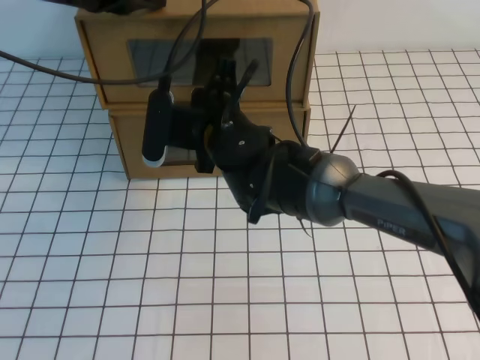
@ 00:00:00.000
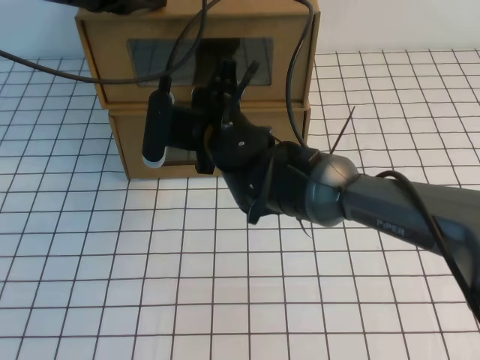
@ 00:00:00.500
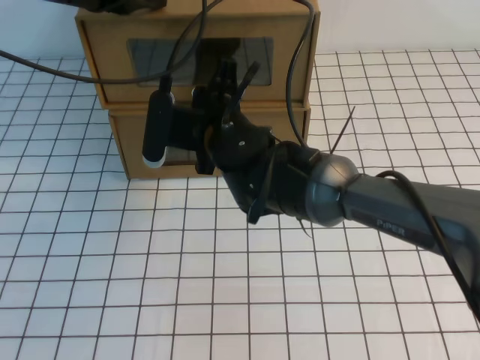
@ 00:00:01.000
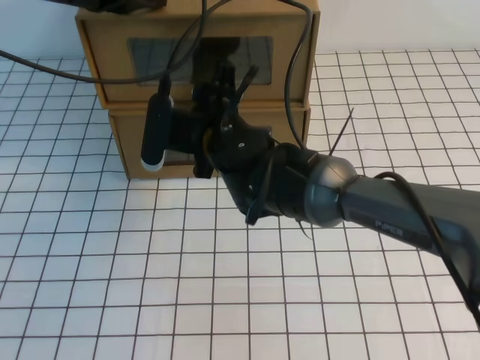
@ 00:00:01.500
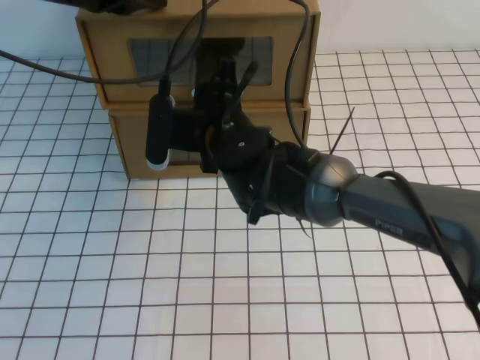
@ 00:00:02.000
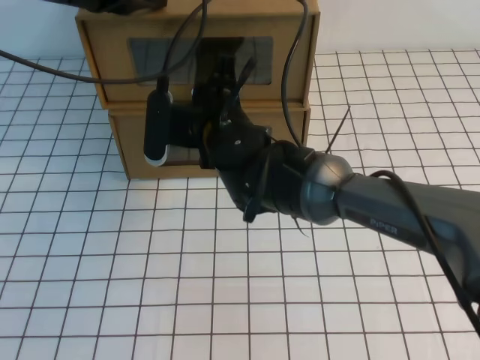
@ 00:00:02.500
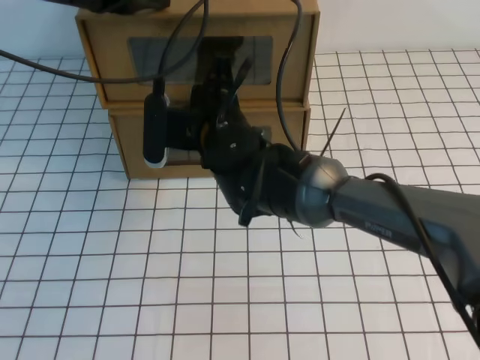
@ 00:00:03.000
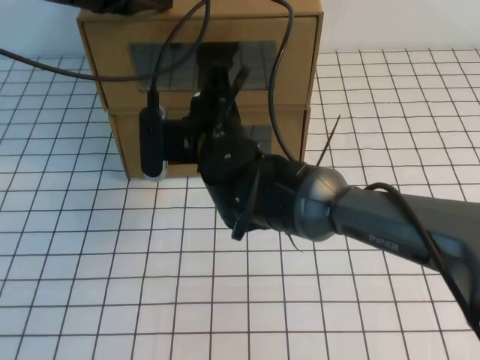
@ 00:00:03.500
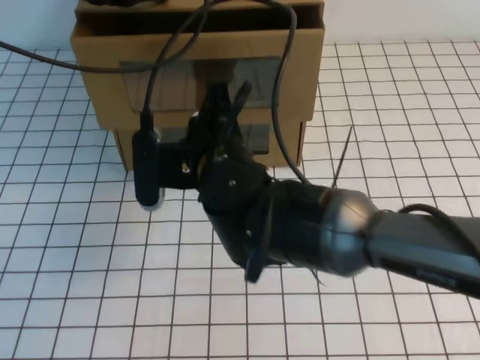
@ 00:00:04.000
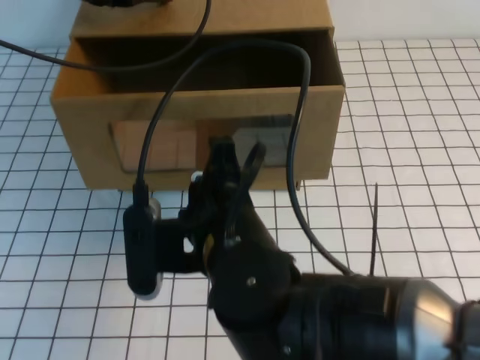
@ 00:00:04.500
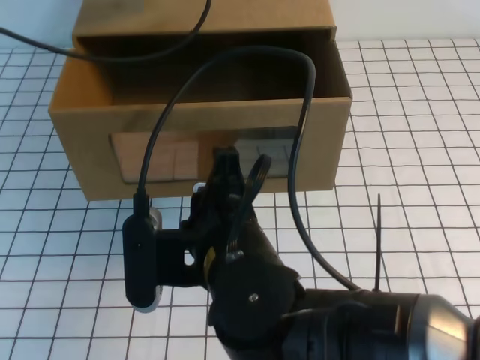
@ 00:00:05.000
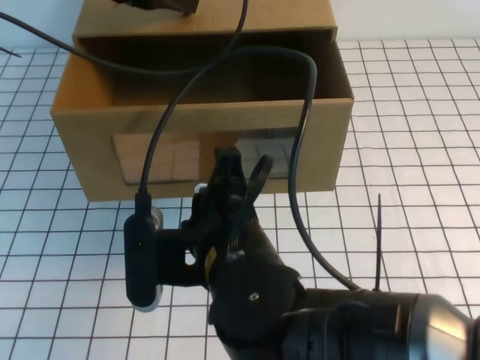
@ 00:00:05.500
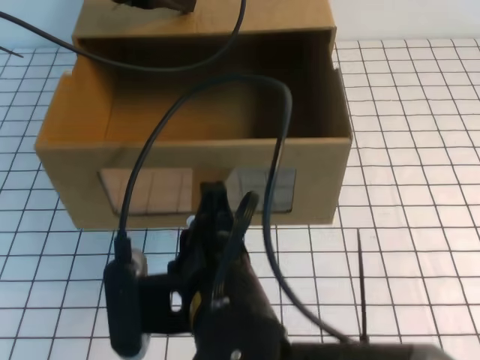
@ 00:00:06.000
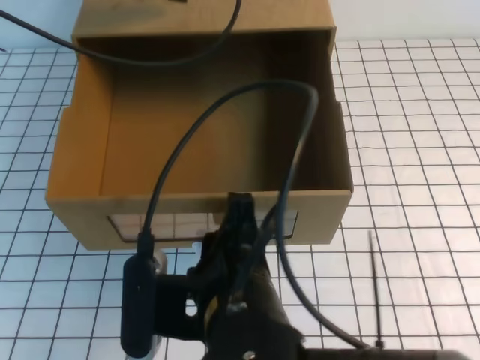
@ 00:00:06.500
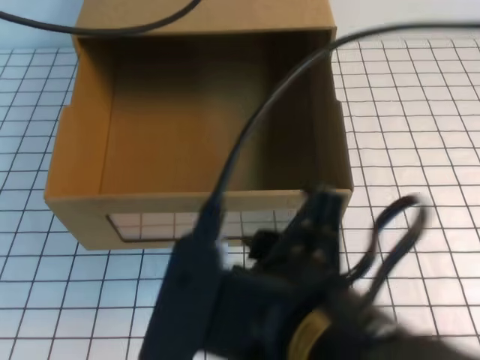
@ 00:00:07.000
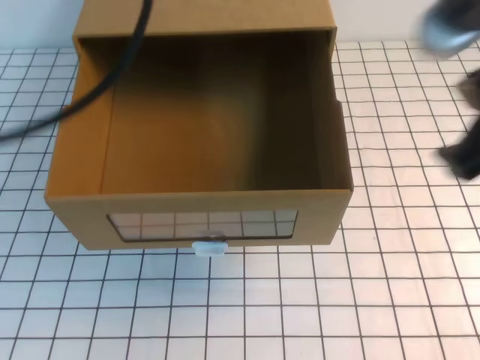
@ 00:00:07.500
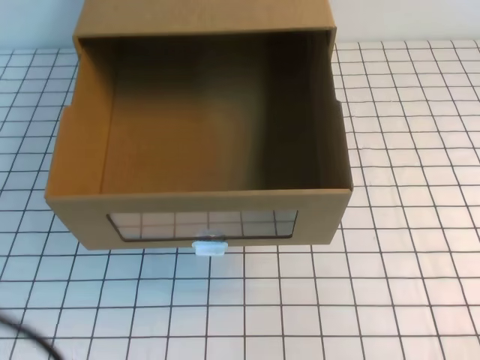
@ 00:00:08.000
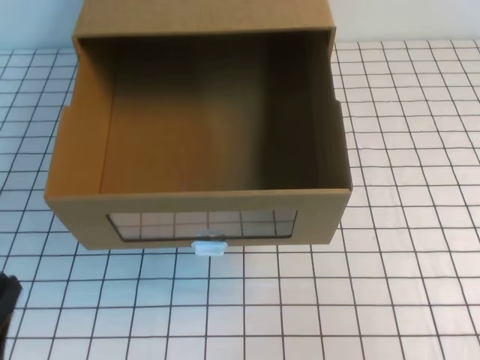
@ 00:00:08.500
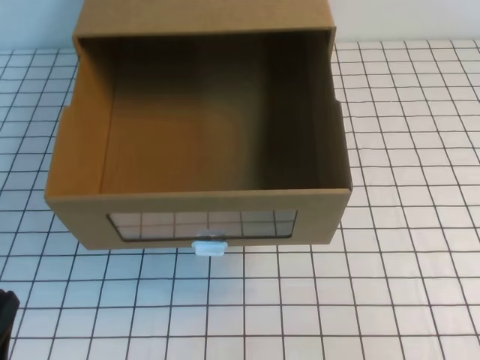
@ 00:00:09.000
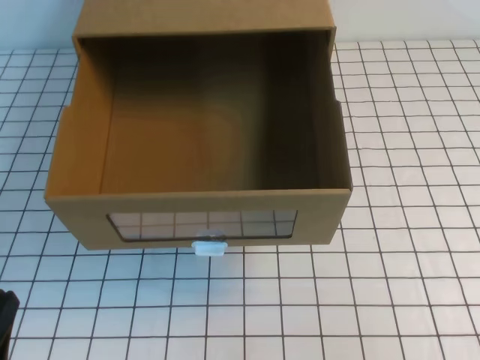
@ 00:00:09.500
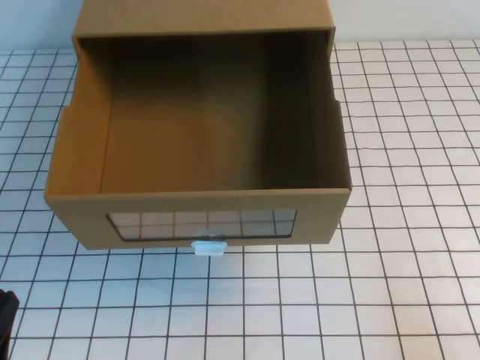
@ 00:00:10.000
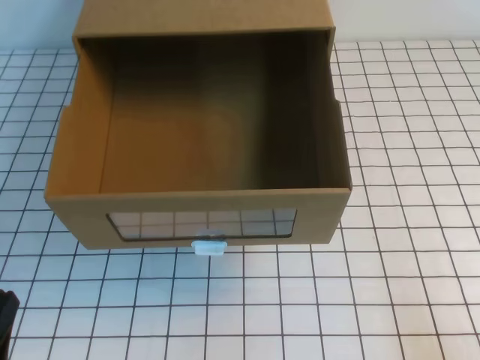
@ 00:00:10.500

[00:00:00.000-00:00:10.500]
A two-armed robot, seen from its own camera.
Task of the whole recording: open the shoebox on the white tablecloth.
00:00:00.000 to 00:00:02.000: The right gripper opens up.
00:00:02.000 to 00:00:04.000: The right gripper travels backward by roughly 5 cm, and closes.
00:00:04.000 to 00:00:06.500: The right gripper moves backward, some 15 cm.
00:00:06.500 to 00:00:08.500: The left gripper travels backward and downward by some 35 cm. Meanwhile the right gripper moves to the right, approximately 30 cm, and opens, then closes once more.
00:00:08.500 to 00:00:10.500: The right gripper goes approximately 15 cm downward, while the left gripper travels downward by approximately 10 cm.

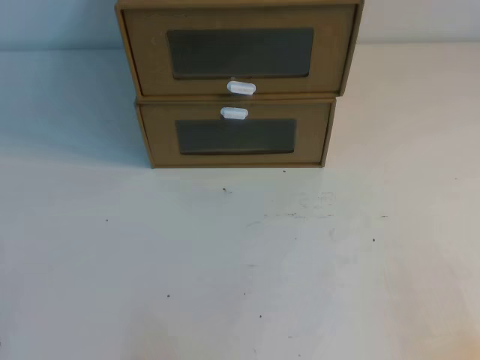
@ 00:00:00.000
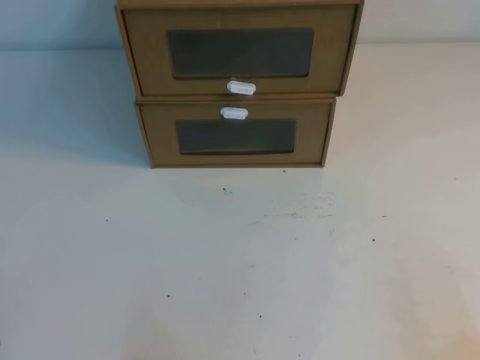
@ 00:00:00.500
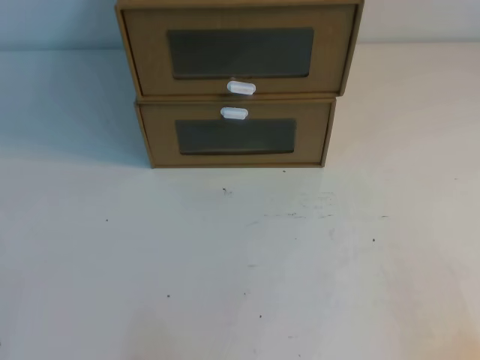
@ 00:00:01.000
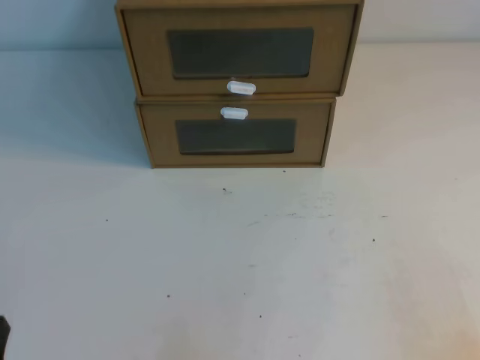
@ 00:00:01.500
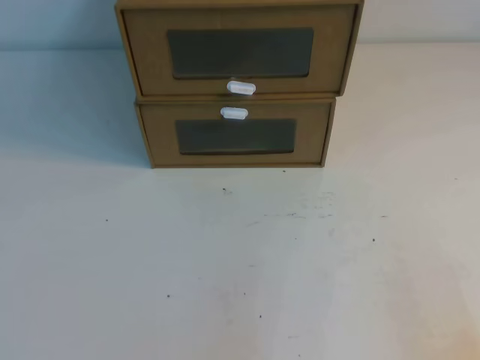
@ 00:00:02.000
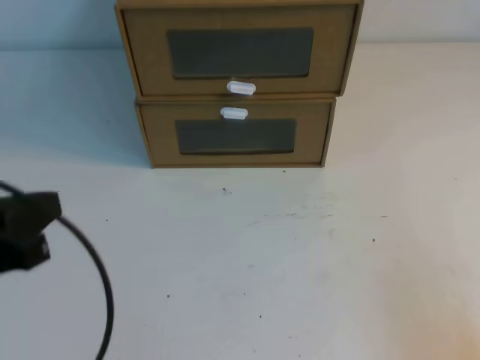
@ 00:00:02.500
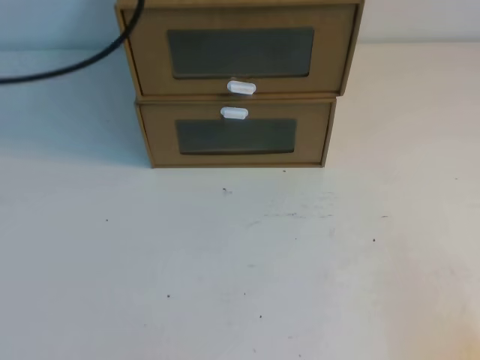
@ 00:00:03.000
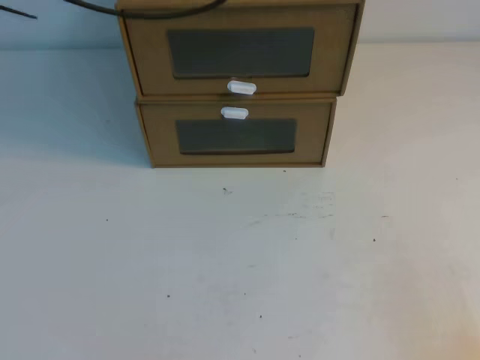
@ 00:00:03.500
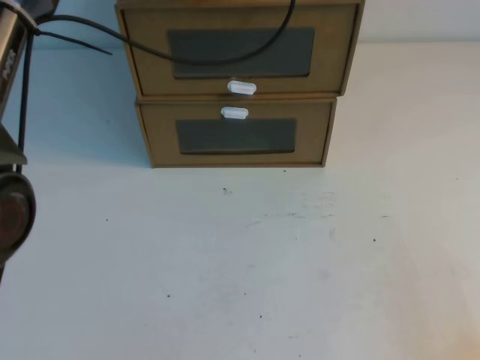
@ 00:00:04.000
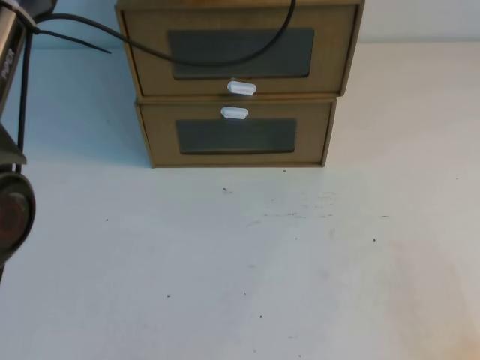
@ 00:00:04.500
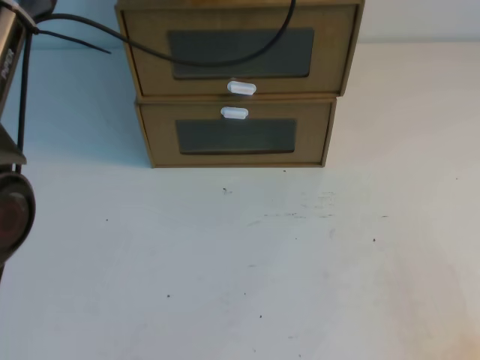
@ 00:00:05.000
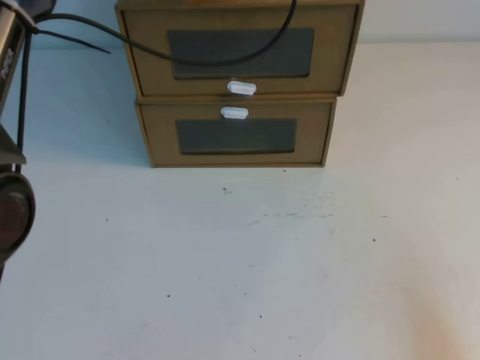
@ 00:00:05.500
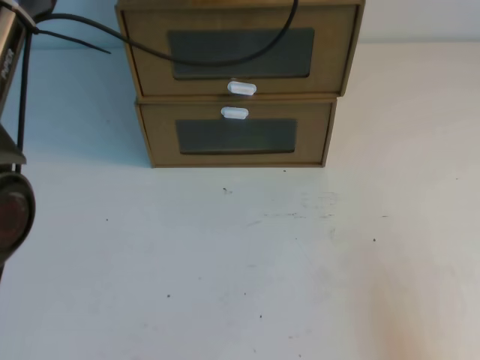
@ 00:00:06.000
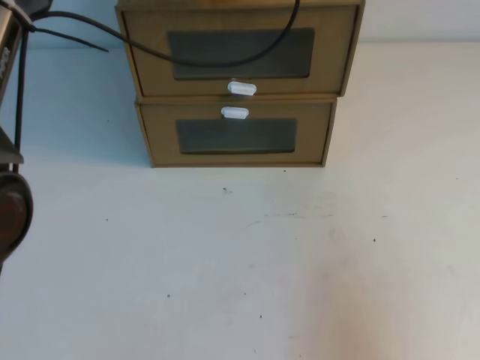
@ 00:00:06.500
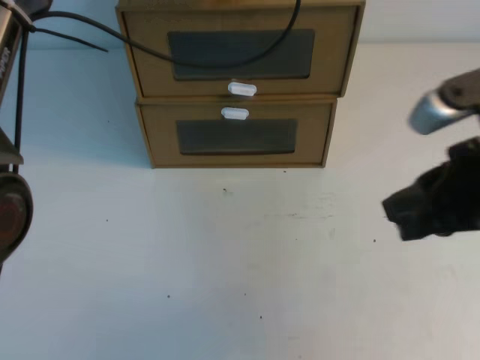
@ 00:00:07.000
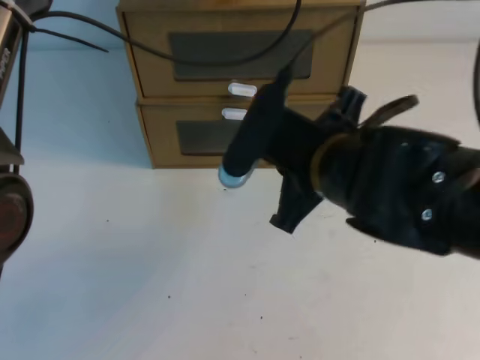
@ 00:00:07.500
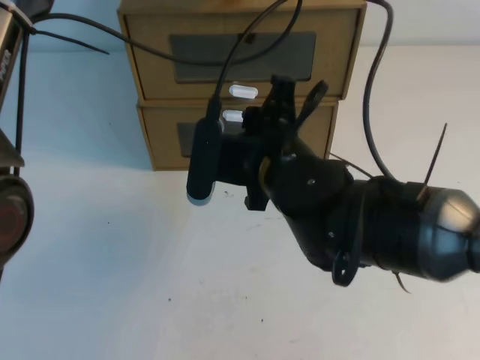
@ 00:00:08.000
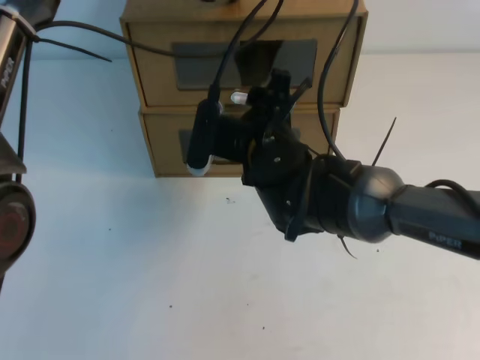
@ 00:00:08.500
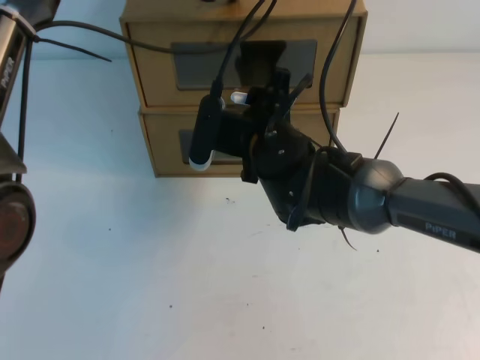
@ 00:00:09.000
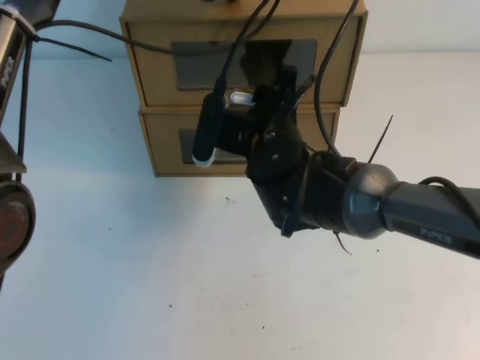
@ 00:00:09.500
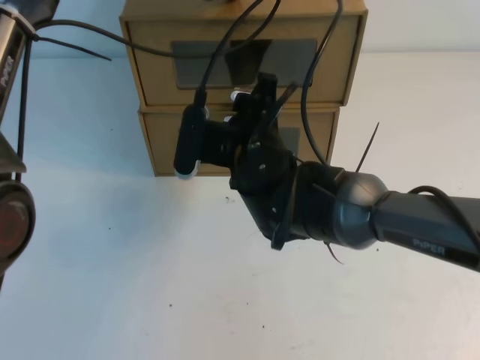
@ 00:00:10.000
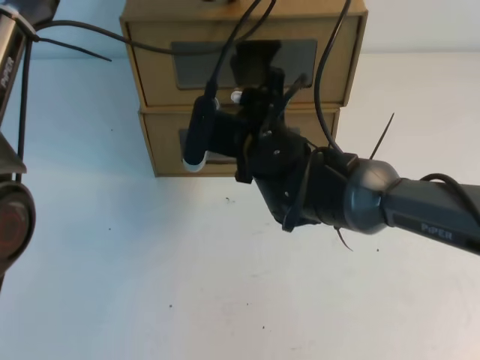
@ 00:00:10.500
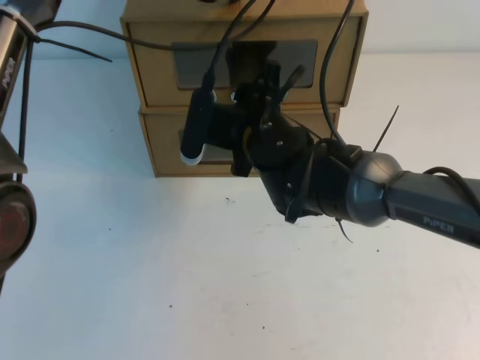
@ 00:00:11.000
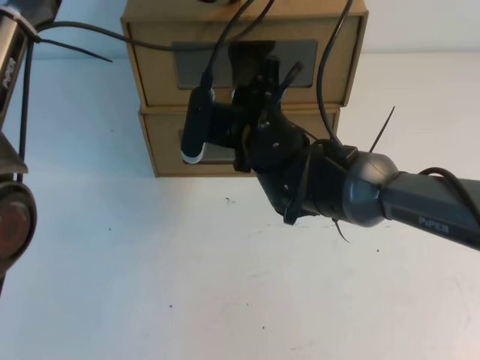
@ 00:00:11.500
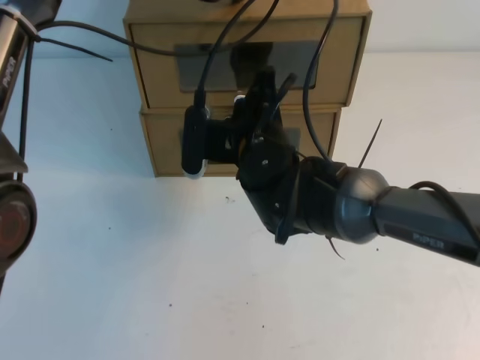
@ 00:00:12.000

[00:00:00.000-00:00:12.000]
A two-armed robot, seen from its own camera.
Task of the whole recording: open the shoebox on the table.
00:00:02.000 to 00:00:04.000: The left gripper shifts approximately 50 cm forward, upward and to the right.
00:00:06.000 to 00:00:08.000: The right gripper is displaced to the left and forward by roughly 35 cm.
00:00:08.000 to 00:00:10.000: The right gripper travels forward by about 5 cm, and opens its fingers.
00:00:10.000 to 00:00:12.000: The right gripper closes its fingers.

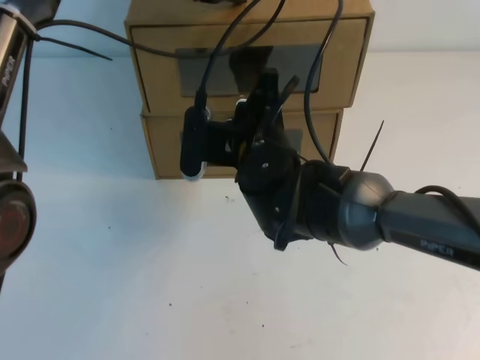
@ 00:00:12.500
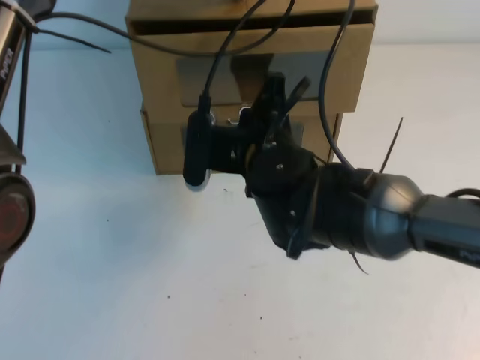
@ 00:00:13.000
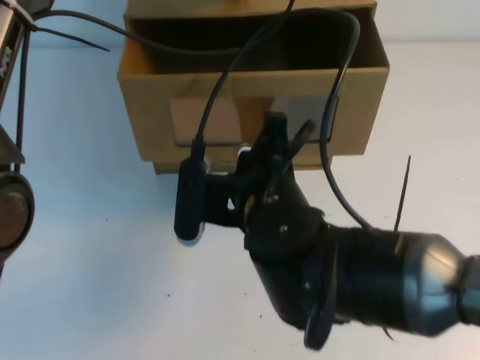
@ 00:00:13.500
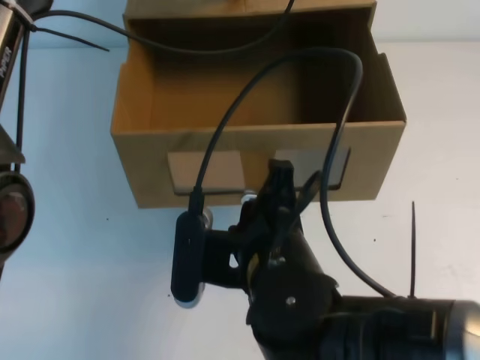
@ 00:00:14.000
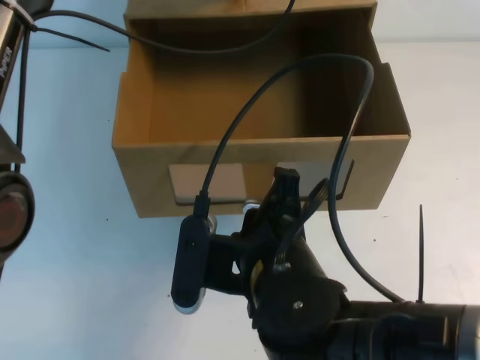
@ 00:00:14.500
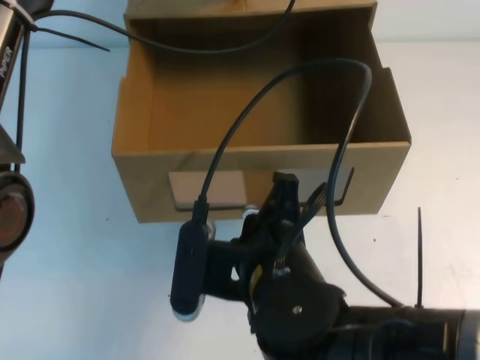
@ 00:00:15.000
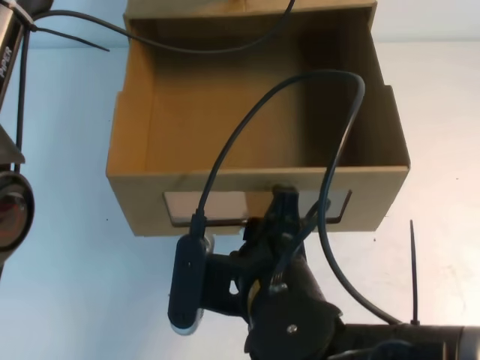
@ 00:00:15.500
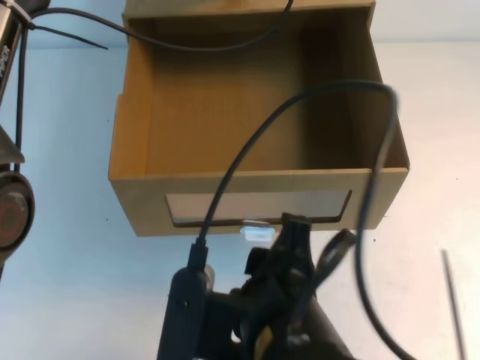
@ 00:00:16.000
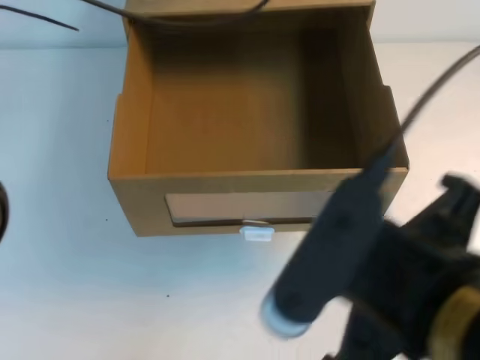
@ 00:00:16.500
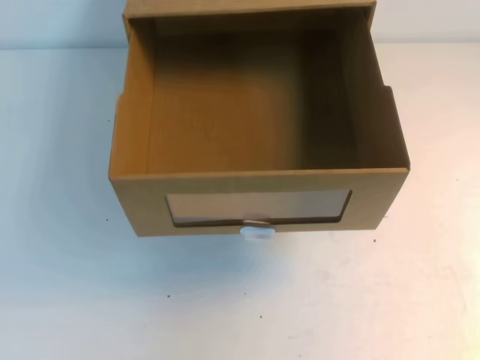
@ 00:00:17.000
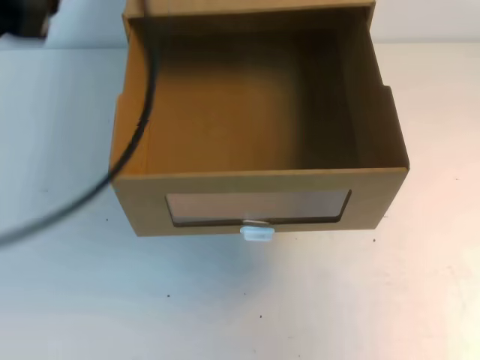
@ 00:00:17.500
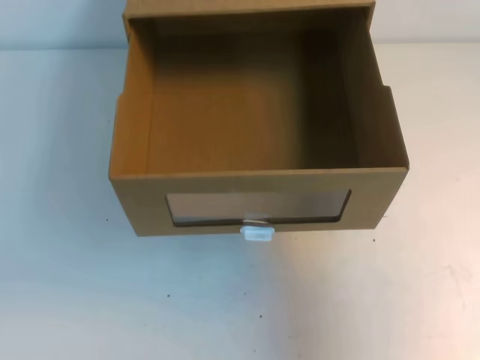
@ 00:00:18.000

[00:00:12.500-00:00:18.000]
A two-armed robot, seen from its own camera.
Task of the whole recording: open the shoebox on the table.
00:00:12.500 to 00:00:14.500: The right gripper travels backward by roughly 15 cm.
00:00:14.500 to 00:00:16.000: The right gripper opens.
00:00:16.000 to 00:00:18.000: The right gripper goes approximately 30 cm to the right and upward, and closes up. The left gripper goes roughly 40 cm backward and to the left.
